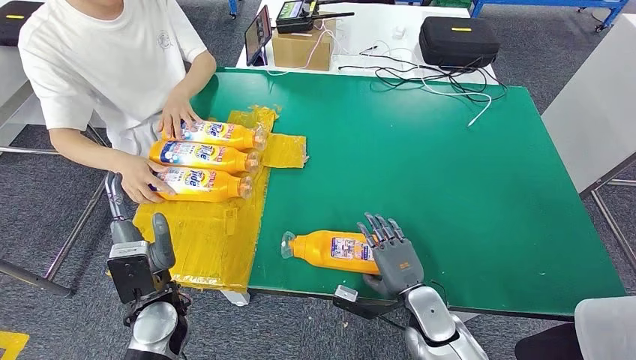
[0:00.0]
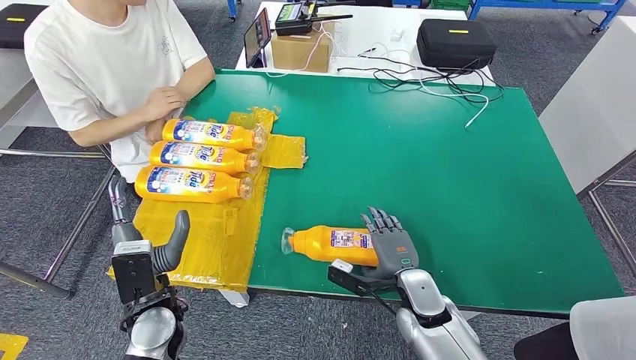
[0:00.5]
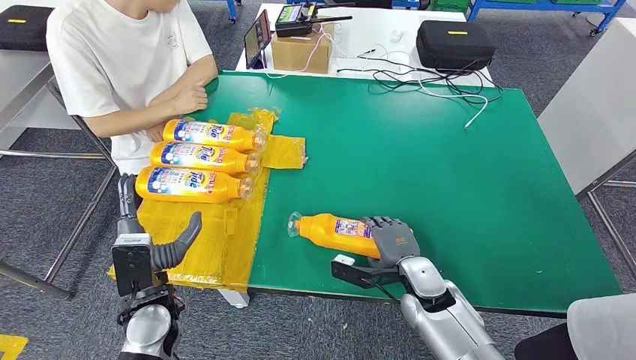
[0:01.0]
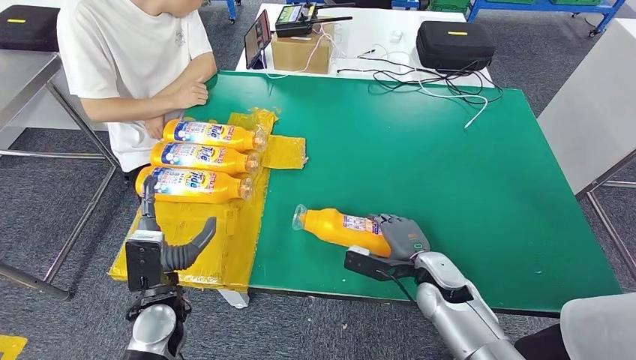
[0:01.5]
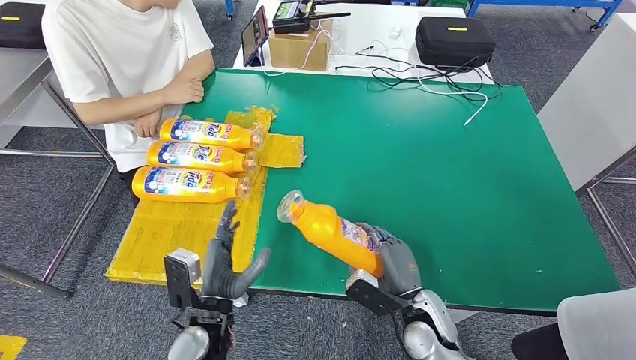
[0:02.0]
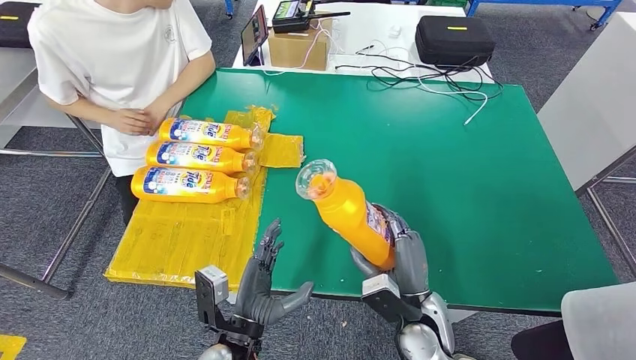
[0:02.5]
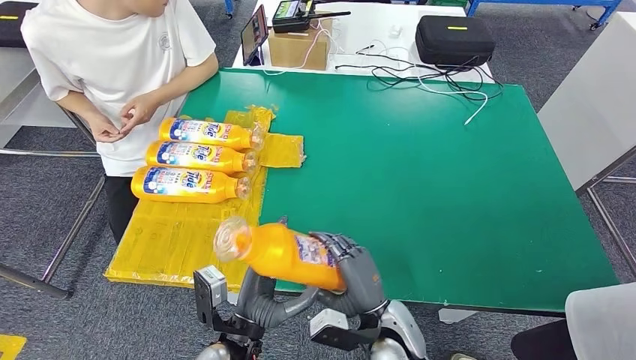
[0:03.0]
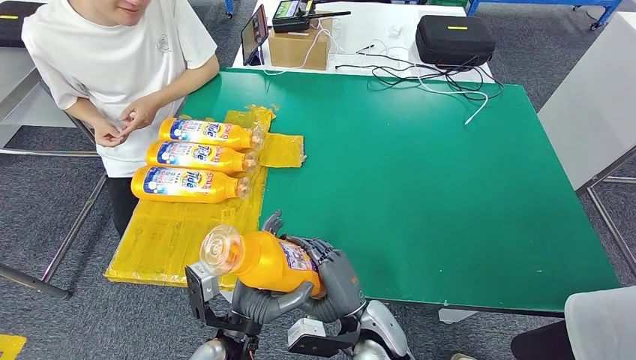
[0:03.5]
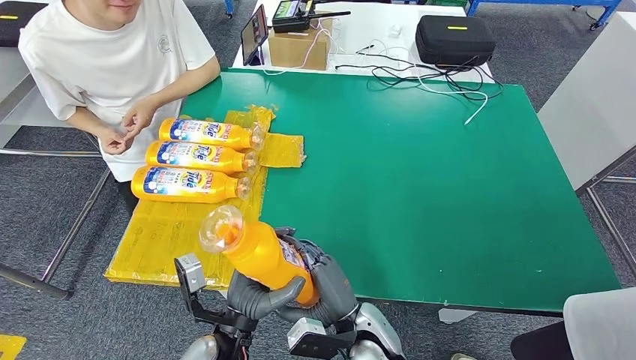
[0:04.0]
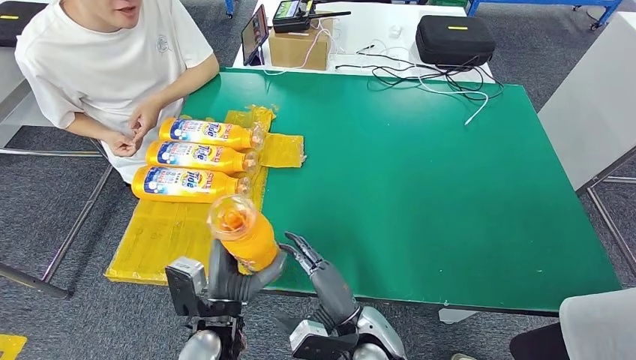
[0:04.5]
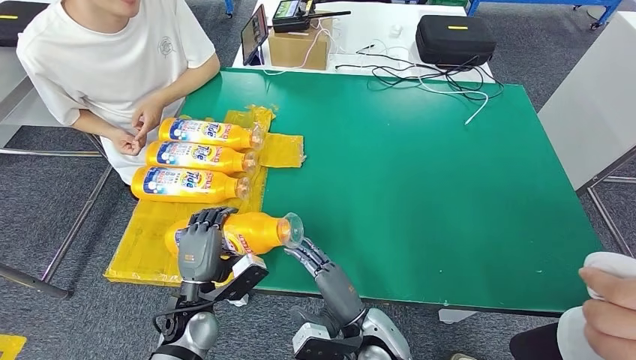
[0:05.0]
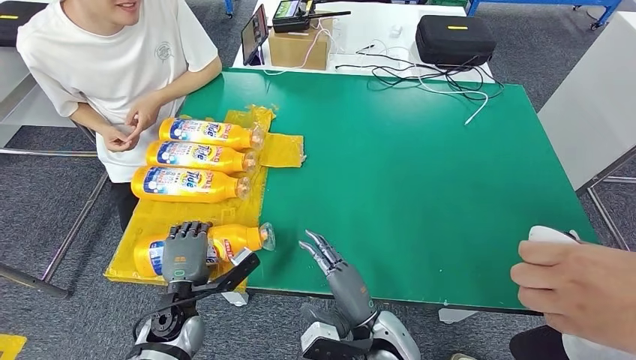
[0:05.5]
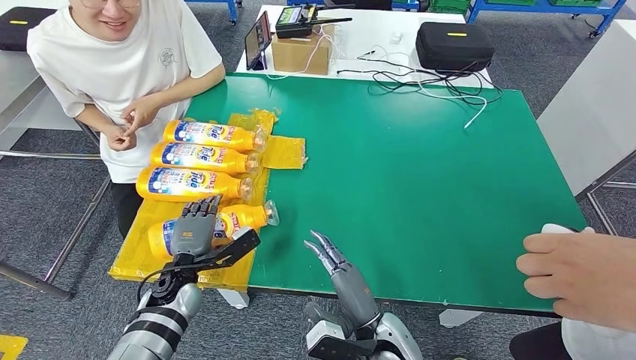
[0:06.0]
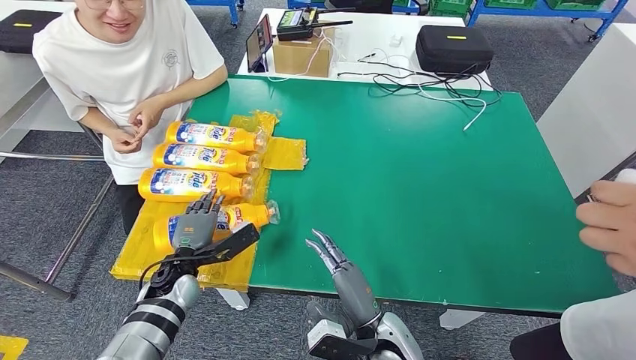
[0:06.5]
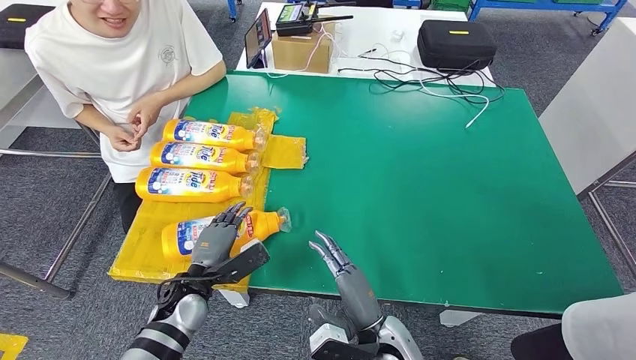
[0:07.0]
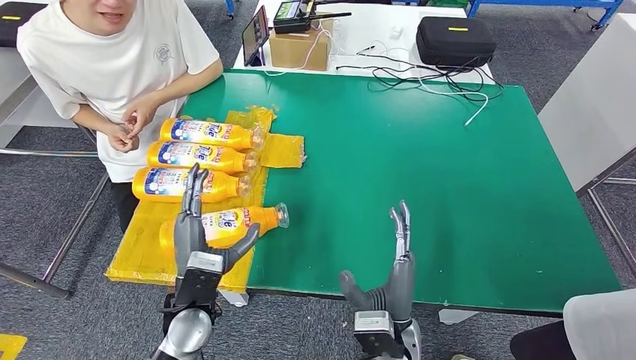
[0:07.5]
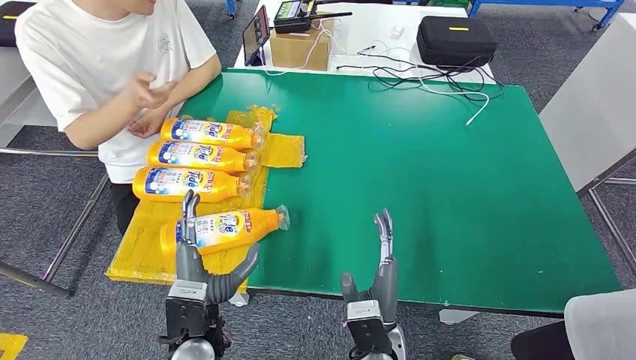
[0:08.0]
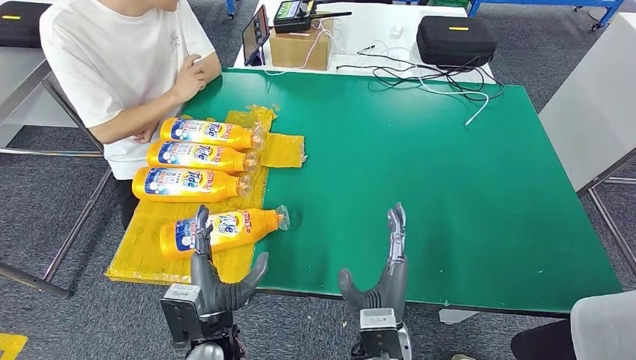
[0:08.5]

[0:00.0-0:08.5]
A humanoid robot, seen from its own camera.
Step, 0:00.5 to 0:04.5: Pick up the fast-moving consumer goods bottle from the table.
Step, 0:05.0 to 0:08.5: Flip the fast-moving consumer goods bottle to the front side.
0:02.0 to 0:04.0: The right hand goes approximately 15 cm to the left and backward; the left hand is displaced to the right by some 5 cm.
